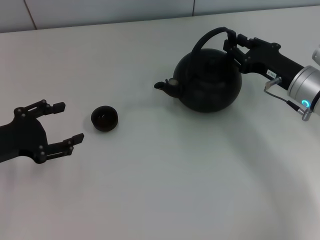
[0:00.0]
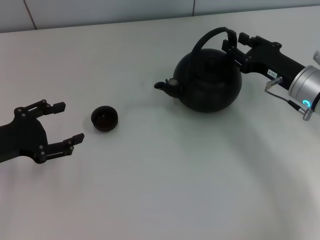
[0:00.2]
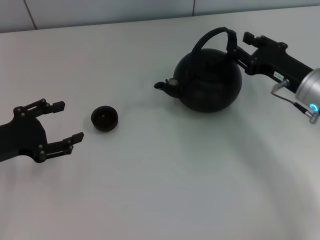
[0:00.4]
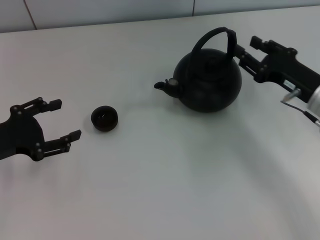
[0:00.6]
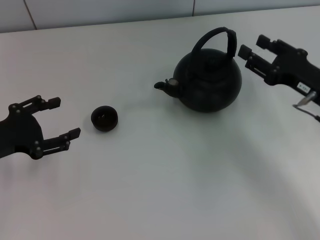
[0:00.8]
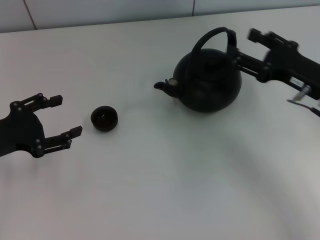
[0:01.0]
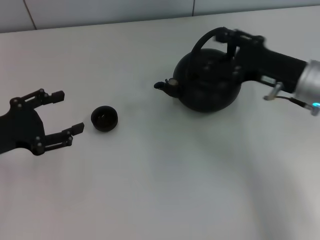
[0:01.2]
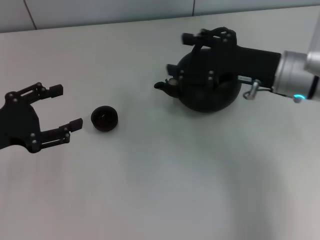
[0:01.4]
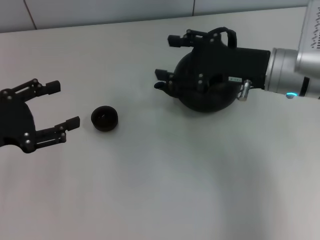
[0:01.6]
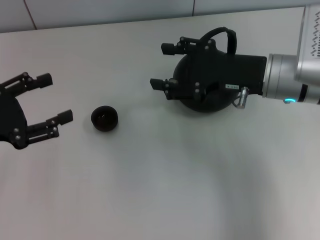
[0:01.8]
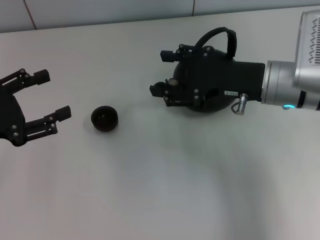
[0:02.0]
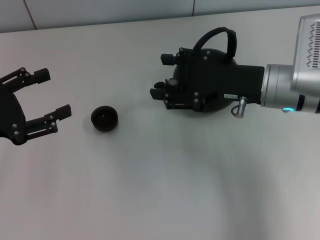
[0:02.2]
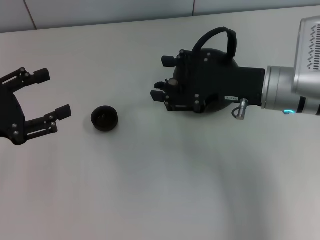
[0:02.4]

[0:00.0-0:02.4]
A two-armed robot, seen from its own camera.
Task of the whole recording: Grasp the handle of the teapot with one hand and pour tea into the teacup.
0:00.0 to 0:01.2: The right gripper heads upward, covering about 5 cm, and opens.
0:01.2 to 0:02.4: The grippers make only small movements.

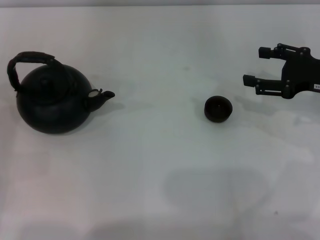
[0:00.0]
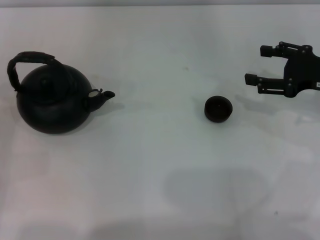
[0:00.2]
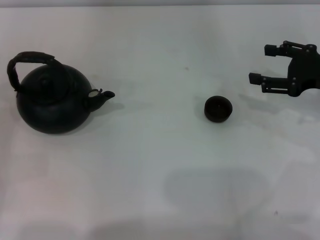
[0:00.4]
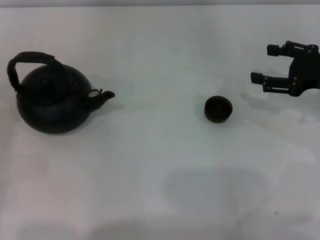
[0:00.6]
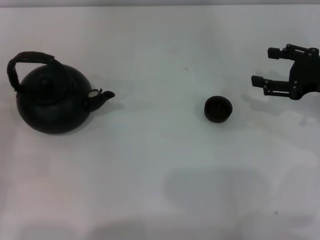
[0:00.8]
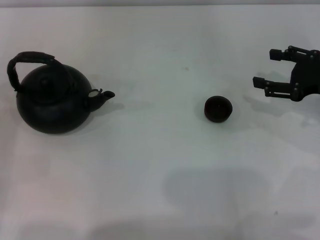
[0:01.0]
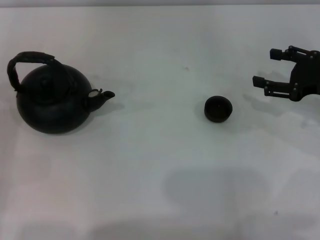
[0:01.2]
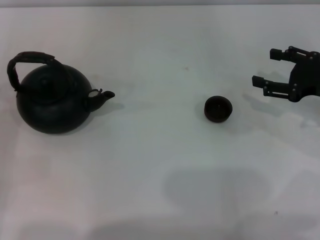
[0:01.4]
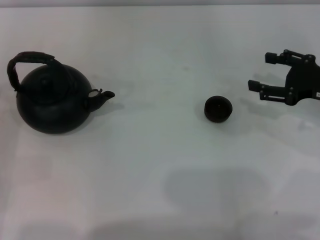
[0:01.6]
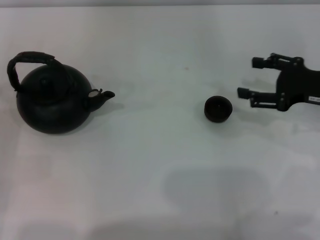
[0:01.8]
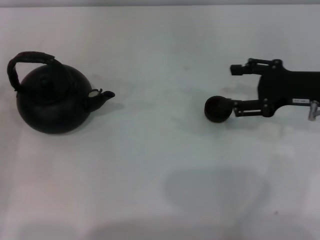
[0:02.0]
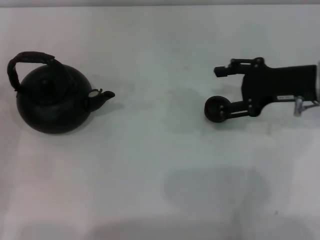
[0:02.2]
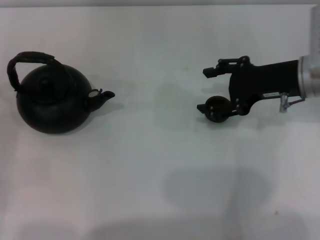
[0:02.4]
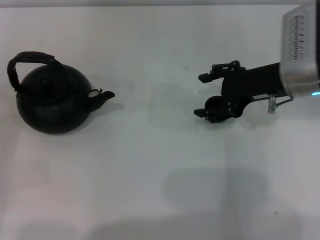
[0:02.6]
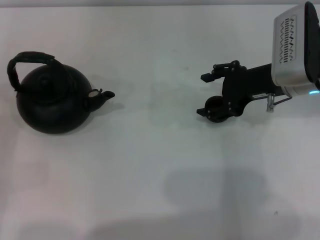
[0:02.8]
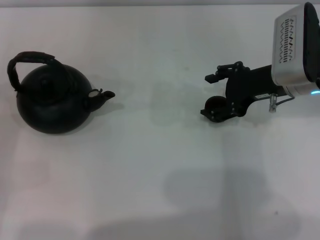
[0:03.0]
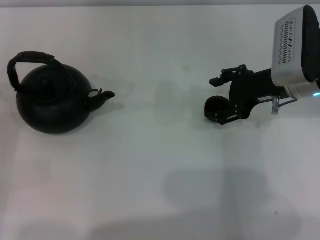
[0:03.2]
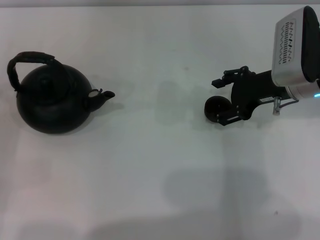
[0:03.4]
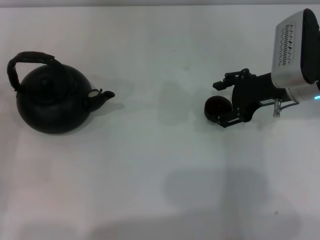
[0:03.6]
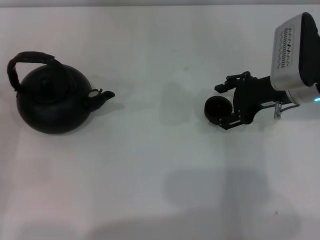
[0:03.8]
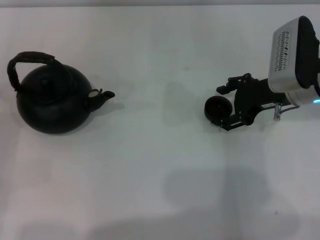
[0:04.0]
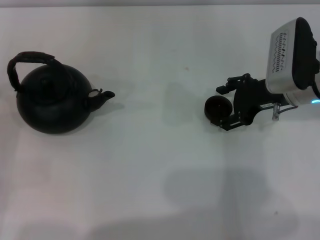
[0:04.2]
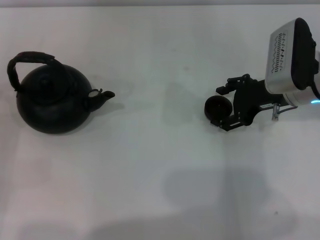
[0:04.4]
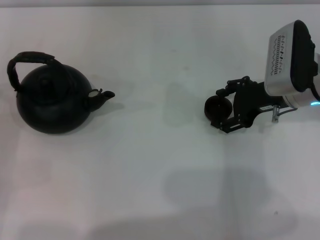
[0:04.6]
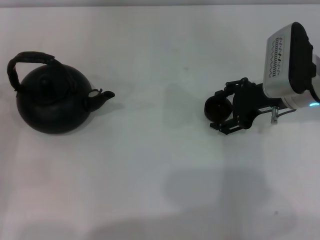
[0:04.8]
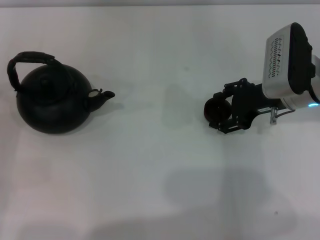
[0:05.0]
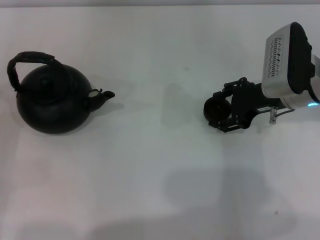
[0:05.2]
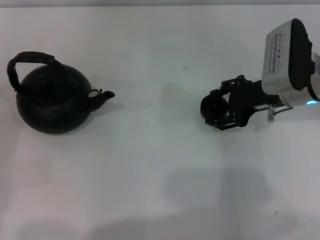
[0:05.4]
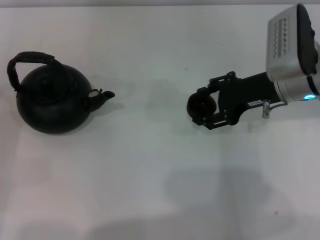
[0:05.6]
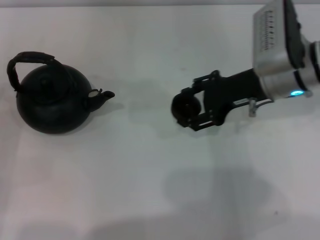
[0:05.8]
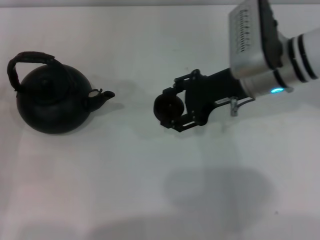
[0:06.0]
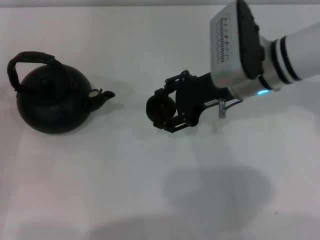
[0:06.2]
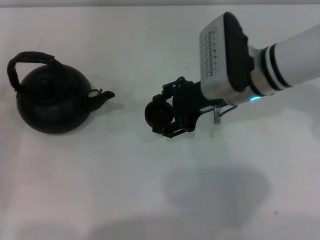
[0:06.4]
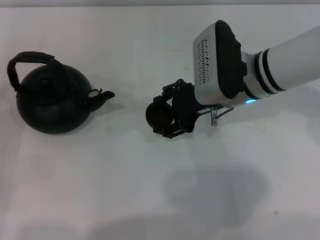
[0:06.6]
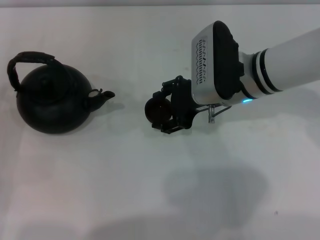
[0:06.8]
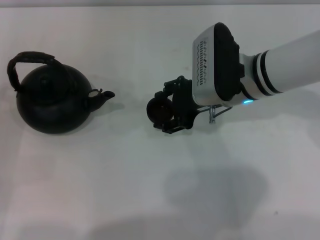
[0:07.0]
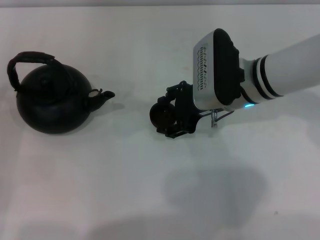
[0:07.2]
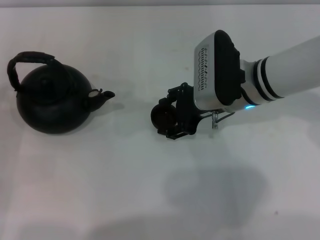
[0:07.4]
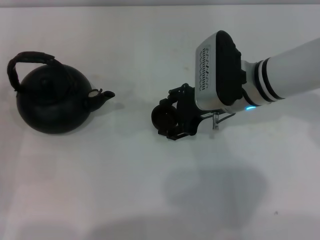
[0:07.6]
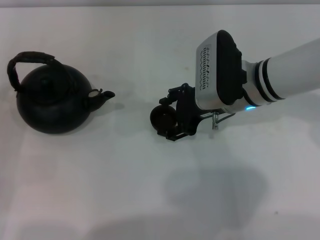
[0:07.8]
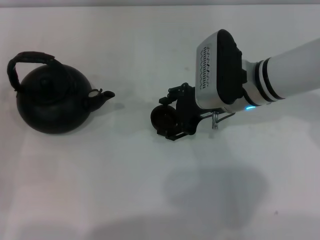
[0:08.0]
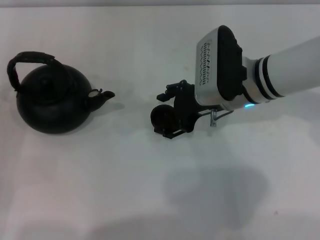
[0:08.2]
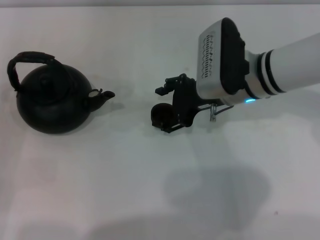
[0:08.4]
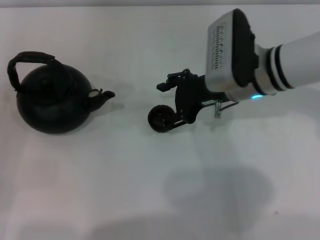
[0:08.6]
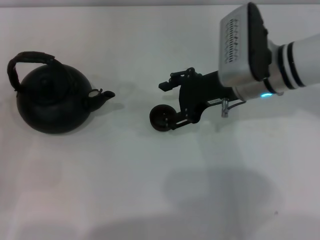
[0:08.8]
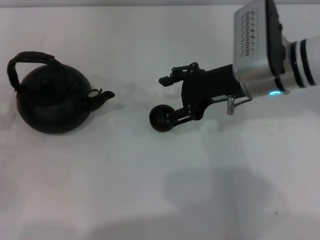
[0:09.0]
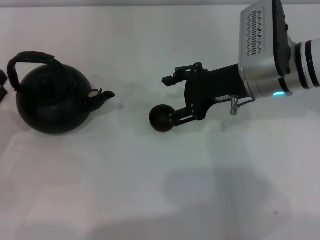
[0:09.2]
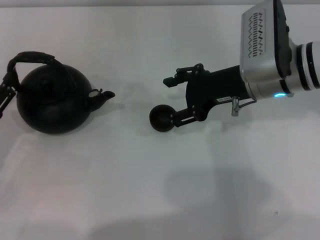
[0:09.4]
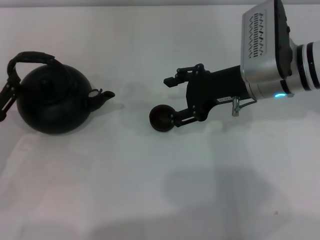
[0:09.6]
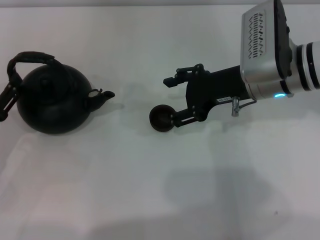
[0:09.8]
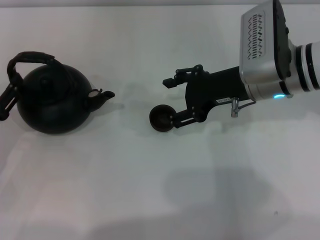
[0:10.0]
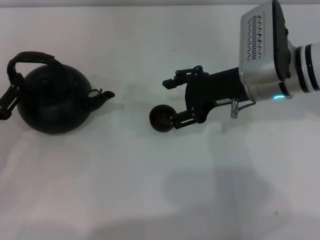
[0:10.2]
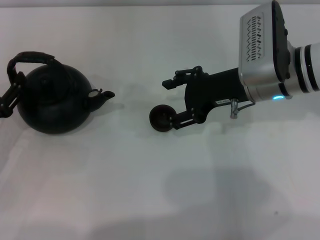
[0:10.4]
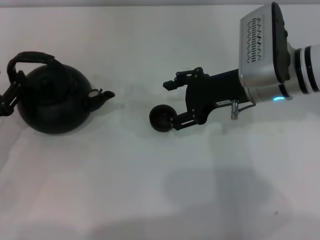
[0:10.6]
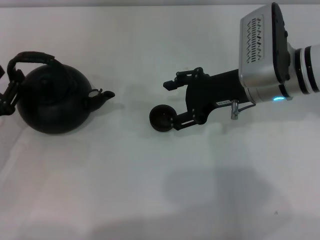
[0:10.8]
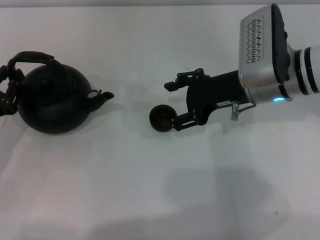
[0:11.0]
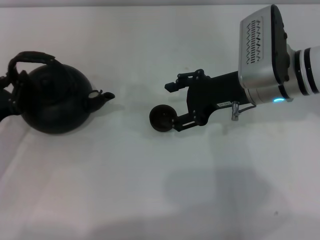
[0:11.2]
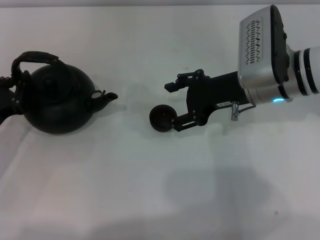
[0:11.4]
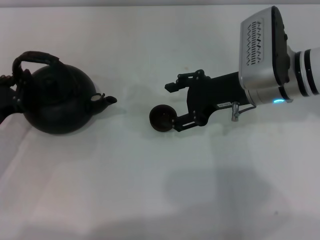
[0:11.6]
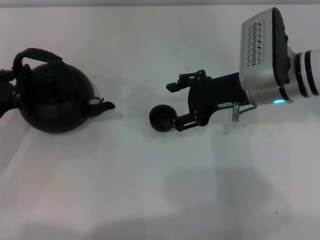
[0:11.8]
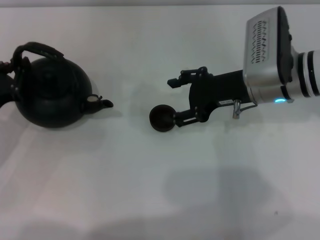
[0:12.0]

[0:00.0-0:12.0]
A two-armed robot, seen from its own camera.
Task of the whole recording: Grasp the handle of the teapot with one hand and pour tea into the teacup.
Step, 0:00.0 to 0:05.4: Pick up the teacup with the right gripper.
0:00.0 to 0:01.6: There are only small adjustments of the grippers.
0:01.6 to 0:03.0: The right gripper moves to the left, approximately 10 cm.
0:03.0 to 0:04.4: The grippers stay close to where they were, moving slightly.
0:04.4 to 0:06.0: The right gripper travels to the left by roughly 5 cm.
0:06.0 to 0:09.0: There are only small adjustments of the grippers.
0:09.0 to 0:10.4: The grippers make only small movements.
0:10.4 to 0:12.0: The left gripper closes its fingers.

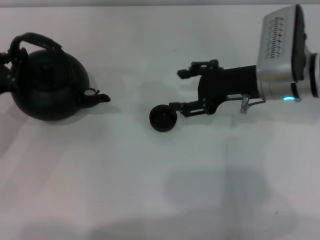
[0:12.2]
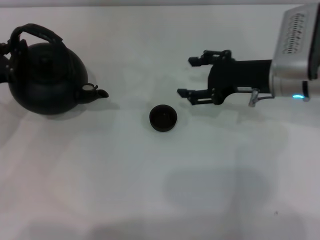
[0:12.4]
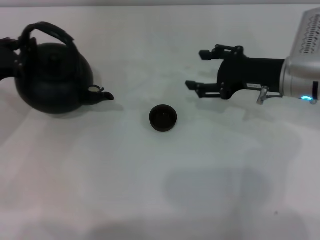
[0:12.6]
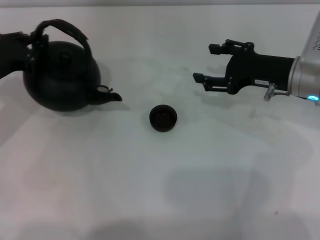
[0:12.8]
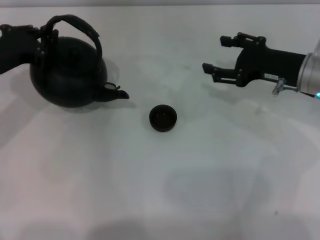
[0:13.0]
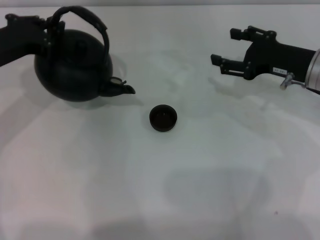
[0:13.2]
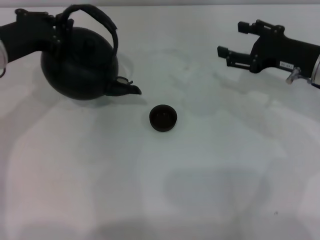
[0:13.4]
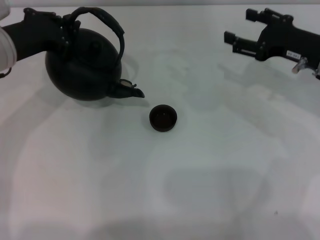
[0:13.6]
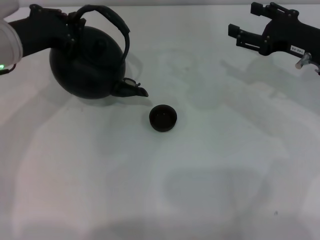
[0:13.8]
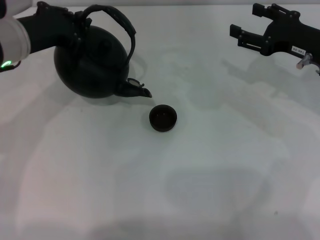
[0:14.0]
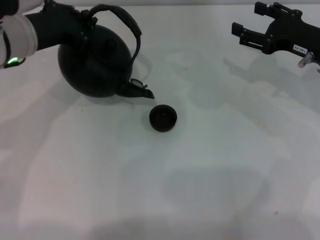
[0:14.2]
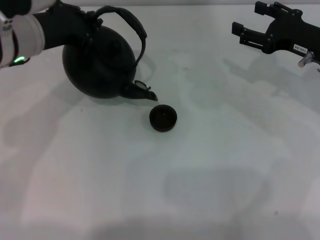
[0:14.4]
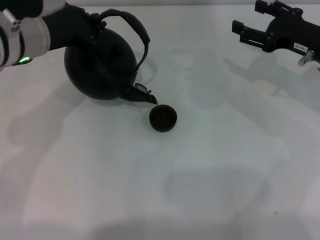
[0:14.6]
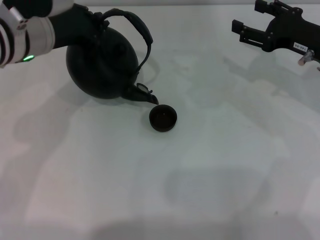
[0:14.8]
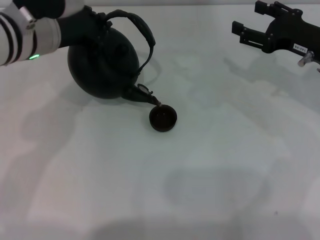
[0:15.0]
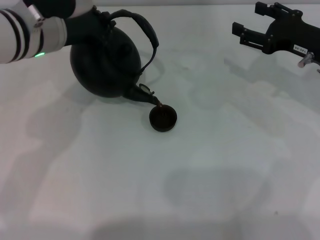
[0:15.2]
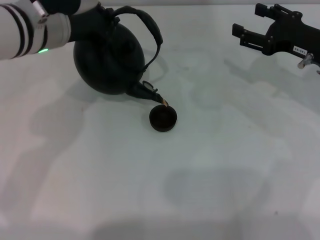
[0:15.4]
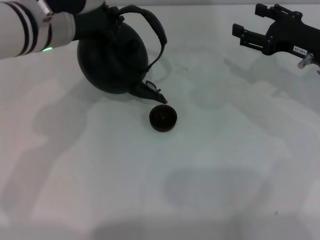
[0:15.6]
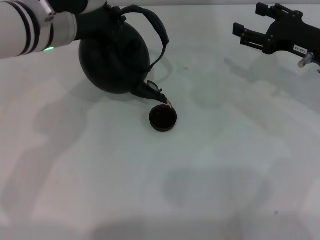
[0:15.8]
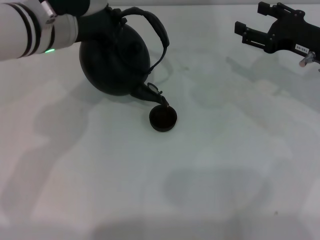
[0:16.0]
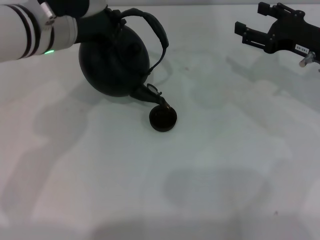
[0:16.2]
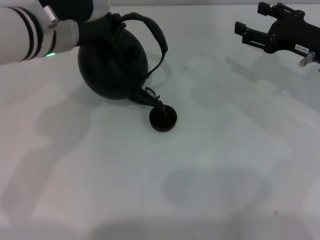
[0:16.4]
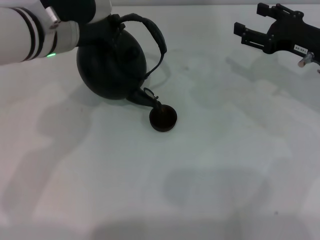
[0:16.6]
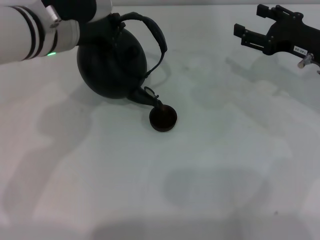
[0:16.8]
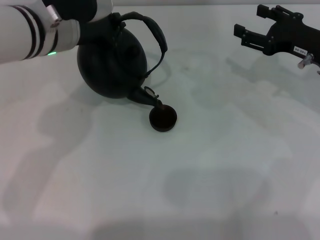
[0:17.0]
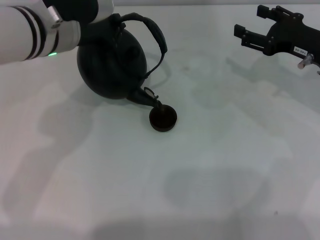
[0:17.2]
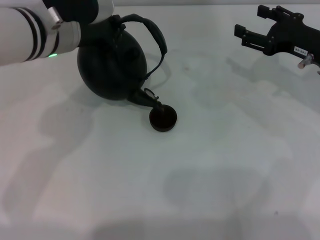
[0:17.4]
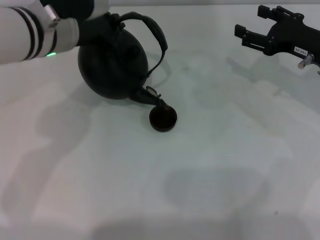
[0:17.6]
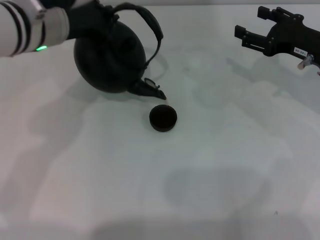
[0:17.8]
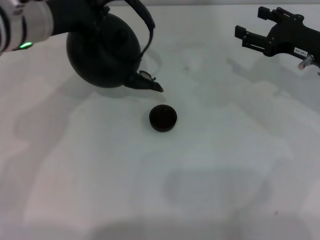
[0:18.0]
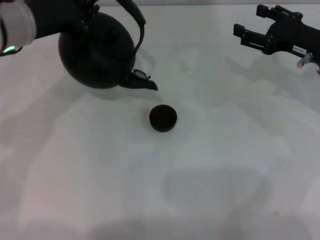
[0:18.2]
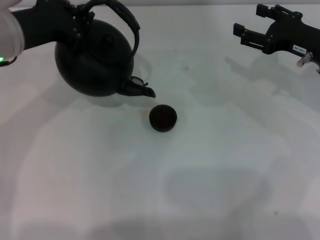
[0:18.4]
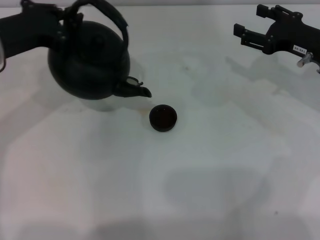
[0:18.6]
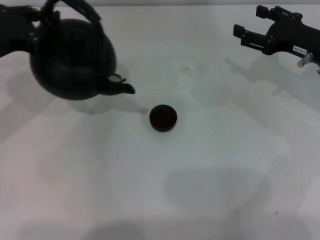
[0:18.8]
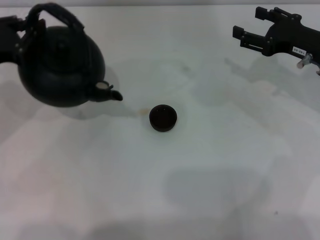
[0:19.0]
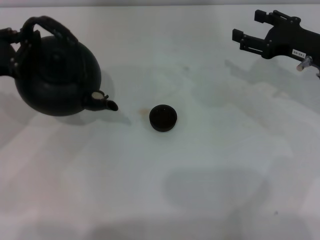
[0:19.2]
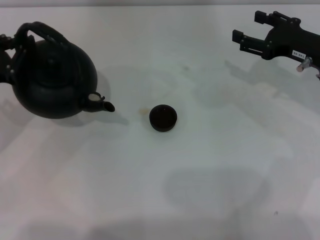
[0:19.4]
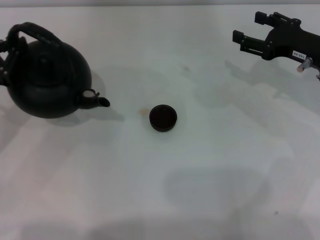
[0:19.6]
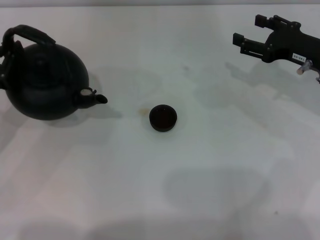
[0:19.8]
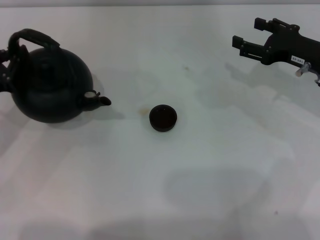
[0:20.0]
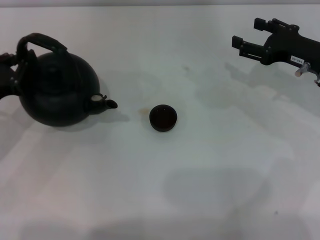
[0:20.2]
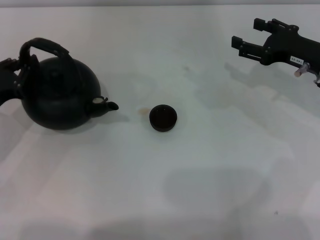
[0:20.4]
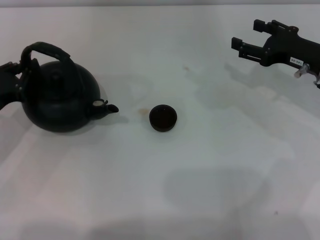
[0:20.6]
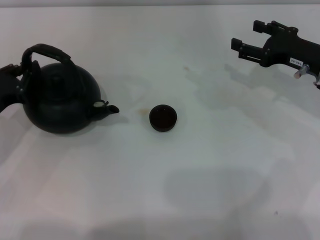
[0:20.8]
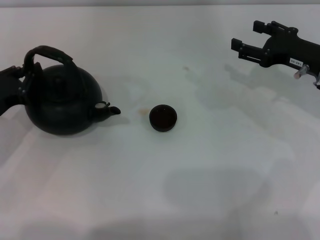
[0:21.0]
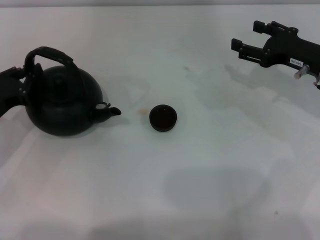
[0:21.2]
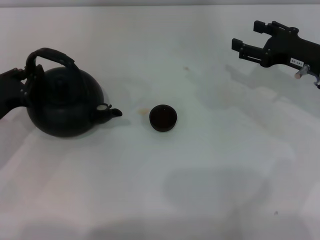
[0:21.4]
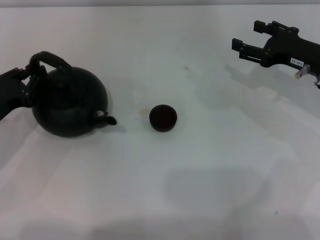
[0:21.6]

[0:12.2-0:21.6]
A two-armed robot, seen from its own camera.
Task of the whole recording: Grasp the handle of the teapot with one hand and pour tea into the teacup.
Step, 0:12.2 to 0:13.4: Pick up the teapot with the left gripper.
Step, 0:13.8 to 0:18.4: Pour tea into the teacup with the left gripper.
0:12.2 to 0:13.8: The right gripper heads to the right, covering approximately 10 cm. The left gripper goes some 15 cm upward, to the right and forward.
0:13.8 to 0:15.4: The left gripper shifts some 5 cm to the right.
0:15.4 to 0:17.0: Neither gripper changes place.
0:17.0 to 0:18.4: The left gripper goes roughly 5 cm to the left.
0:18.4 to 0:20.0: The left gripper shifts some 15 cm downward, to the left and backward.
0:20.0 to 0:21.6: The grippers stay close to where they were, moving slightly.
